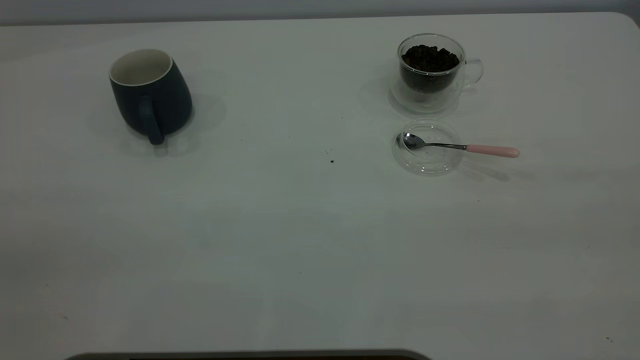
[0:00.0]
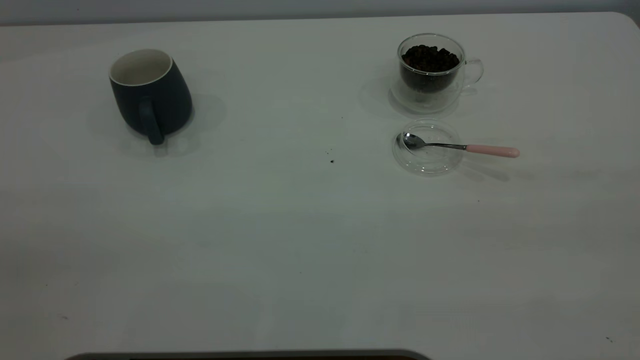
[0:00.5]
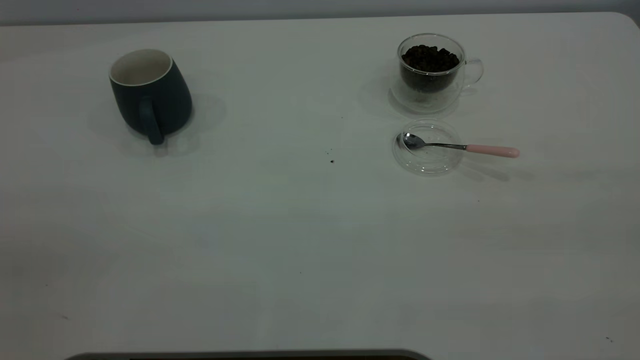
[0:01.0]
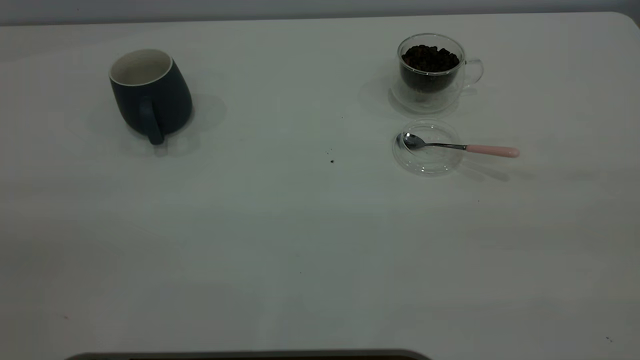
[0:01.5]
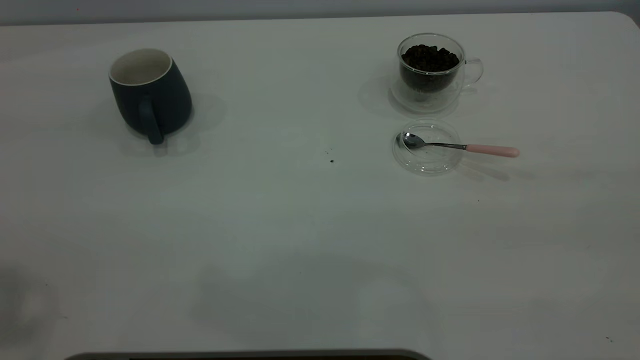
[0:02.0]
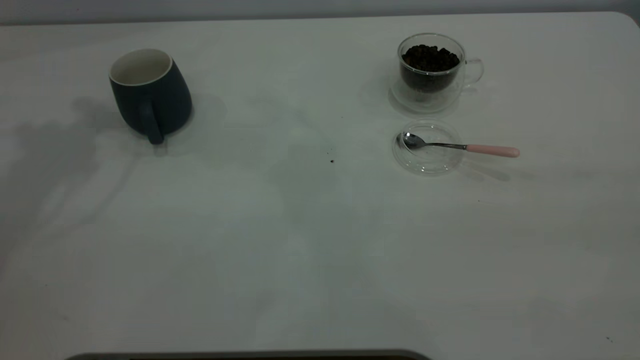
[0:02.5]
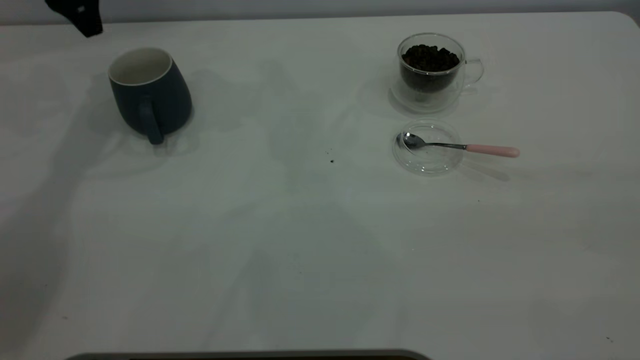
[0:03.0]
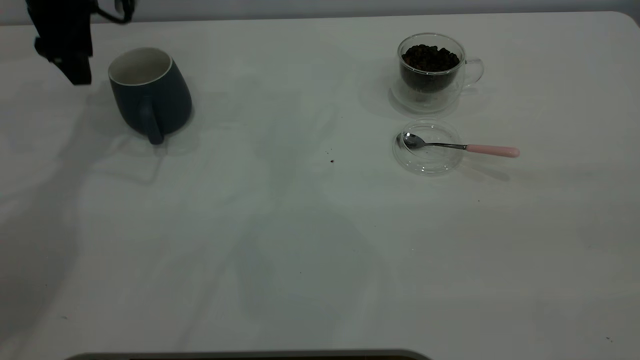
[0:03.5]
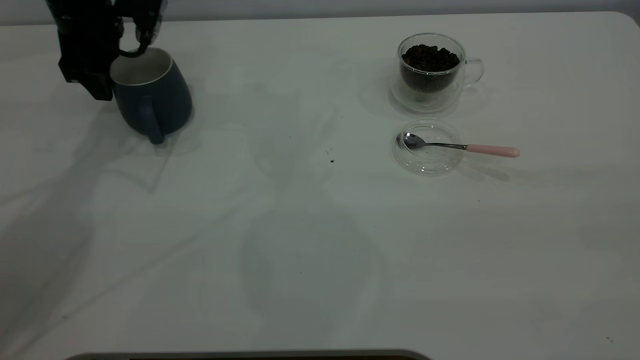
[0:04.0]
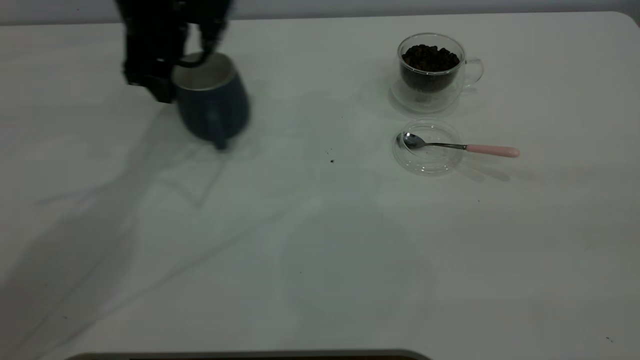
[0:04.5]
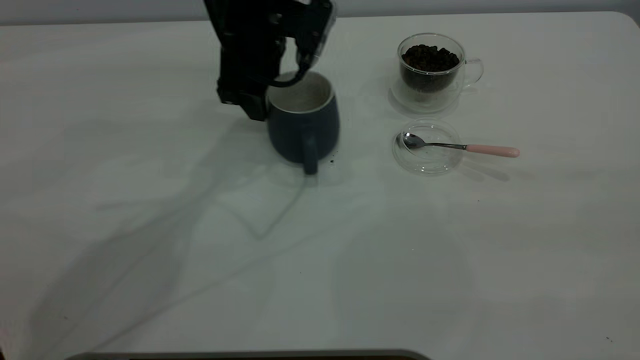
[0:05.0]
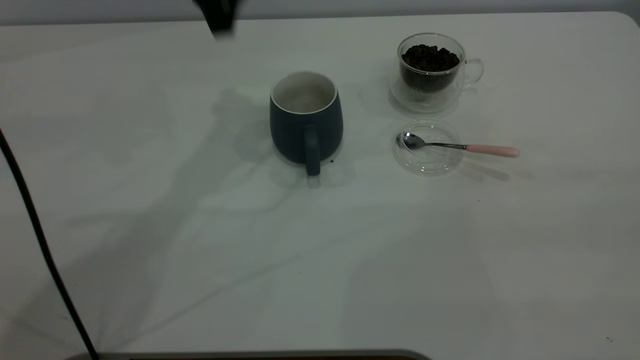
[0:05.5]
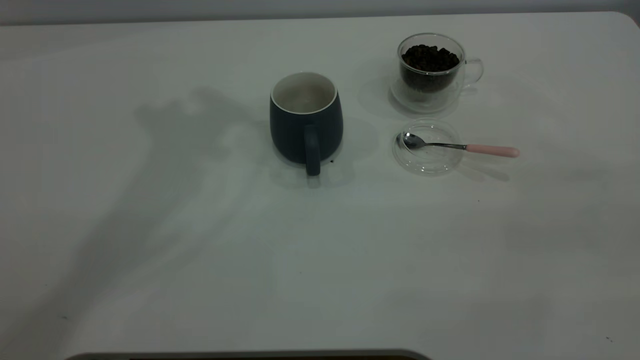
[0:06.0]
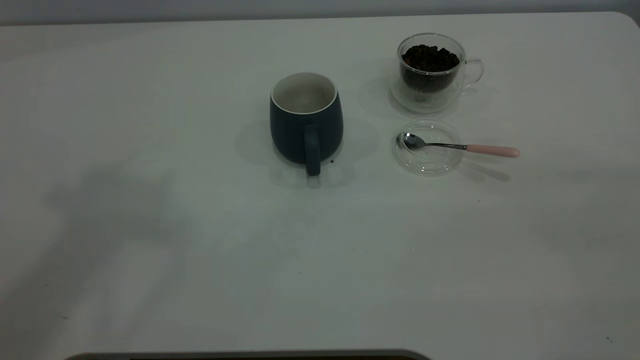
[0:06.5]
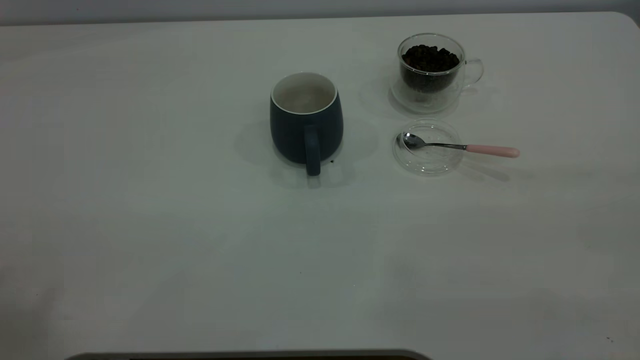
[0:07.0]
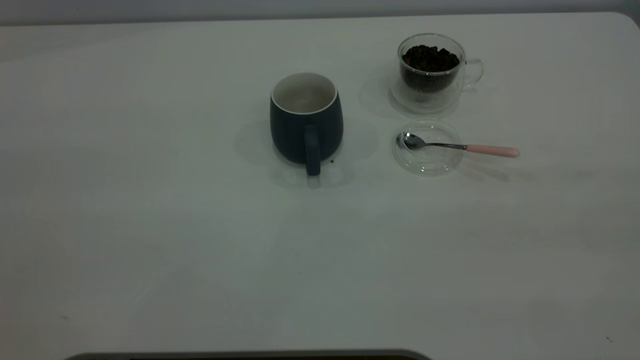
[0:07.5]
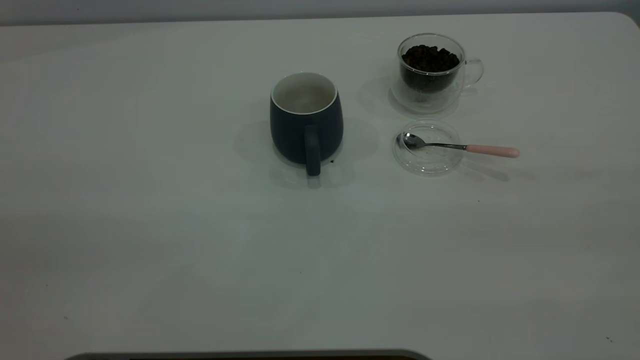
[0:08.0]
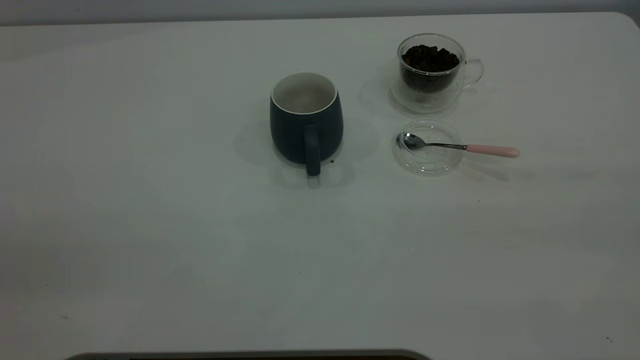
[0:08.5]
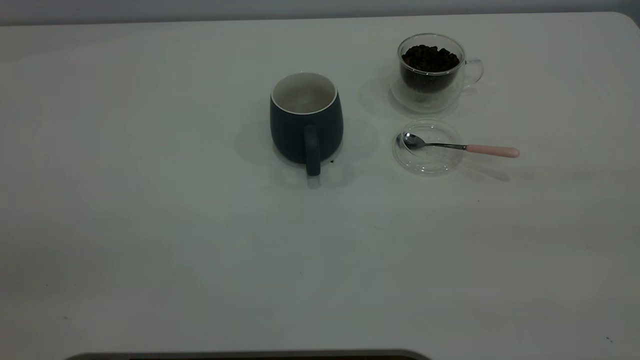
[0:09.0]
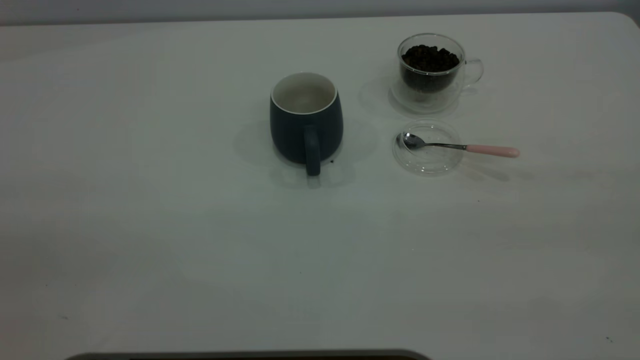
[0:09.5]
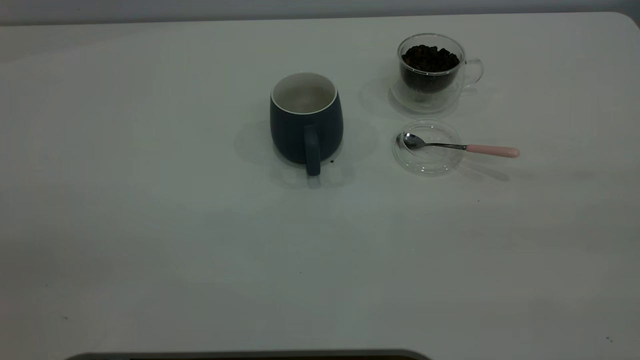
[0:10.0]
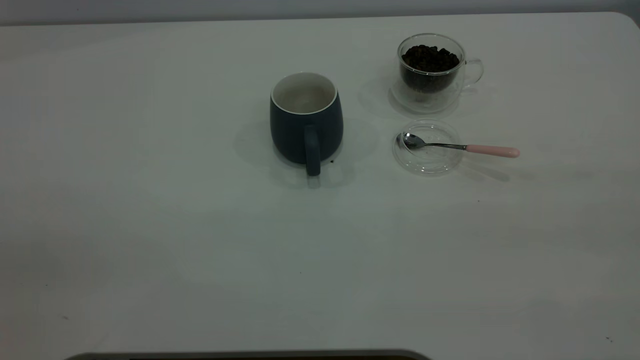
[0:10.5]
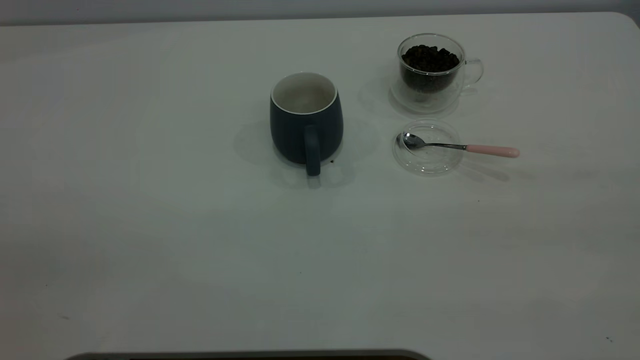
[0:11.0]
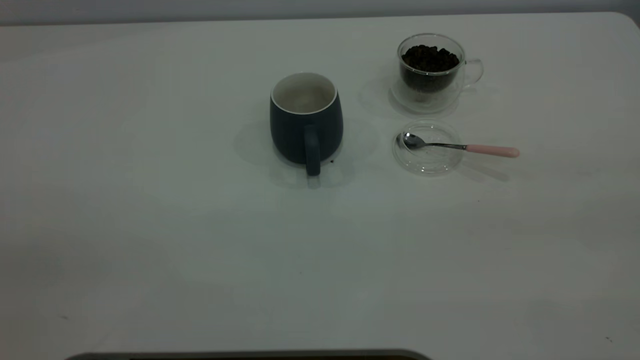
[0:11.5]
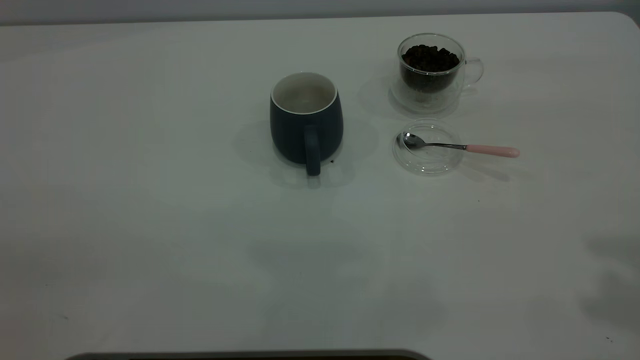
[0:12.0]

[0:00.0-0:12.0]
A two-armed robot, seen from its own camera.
Task of the whole recording: the left gripper place the grey cup in the center of the table, the right gripper take the pink spoon from the cup lid and scoop out the coffee beans from the coffee cup and put them into the grey cup, the right gripper put the spoon back into the cup lid.
Step, 0:00.0 to 0:05.0: Move the cup to the center of view.
0:02.0 to 0:04.0: The left gripper moves forward and downward, some 40 cm.
0:04.0 to 0:06.0: The left gripper heads upward, covering about 35 cm.

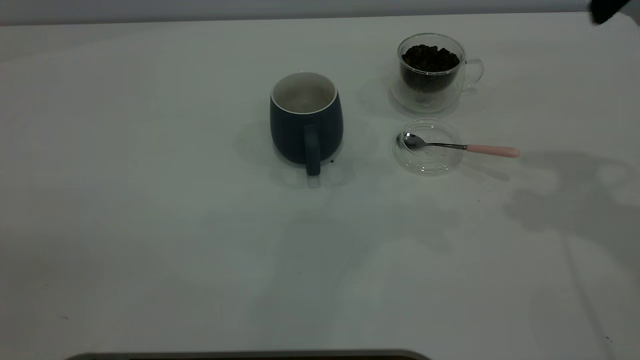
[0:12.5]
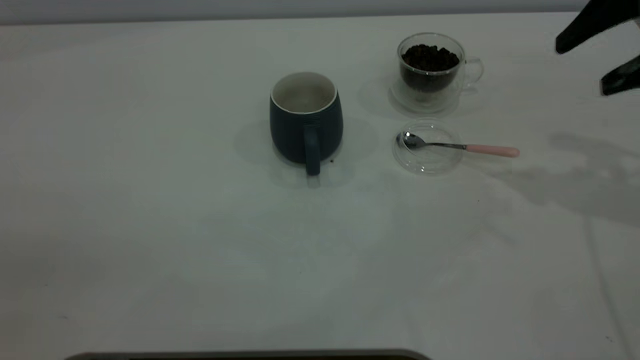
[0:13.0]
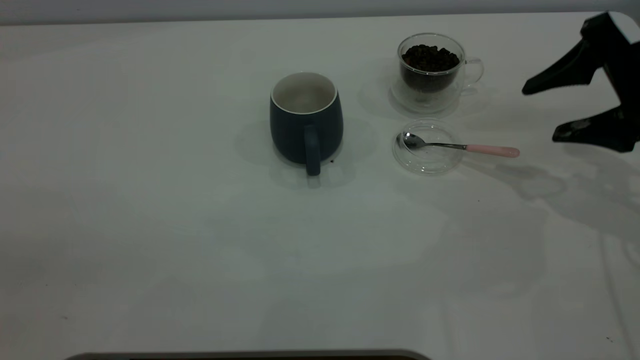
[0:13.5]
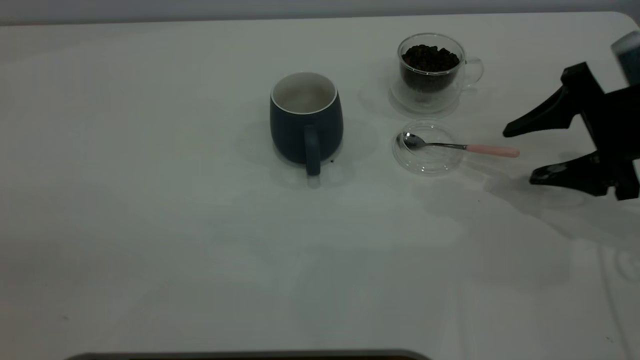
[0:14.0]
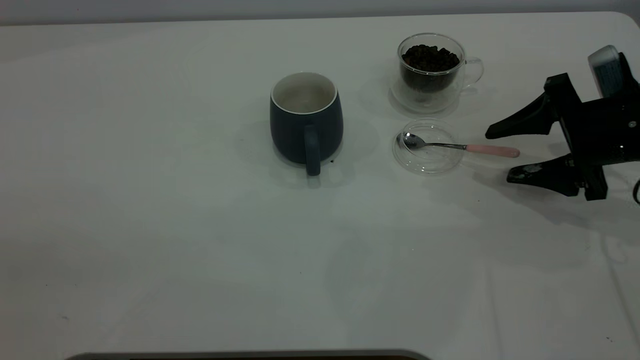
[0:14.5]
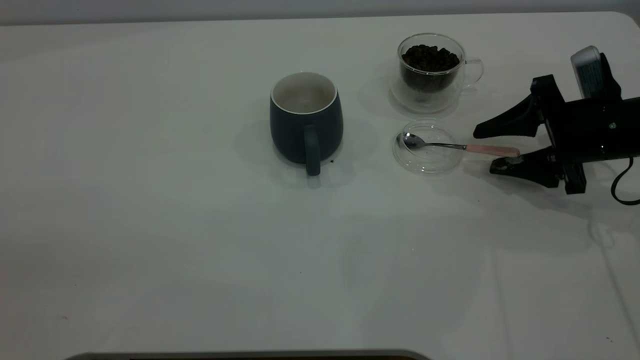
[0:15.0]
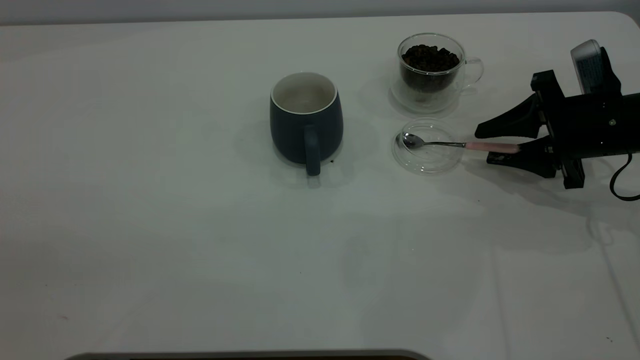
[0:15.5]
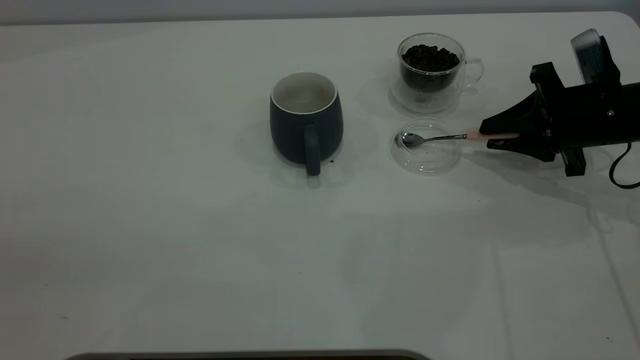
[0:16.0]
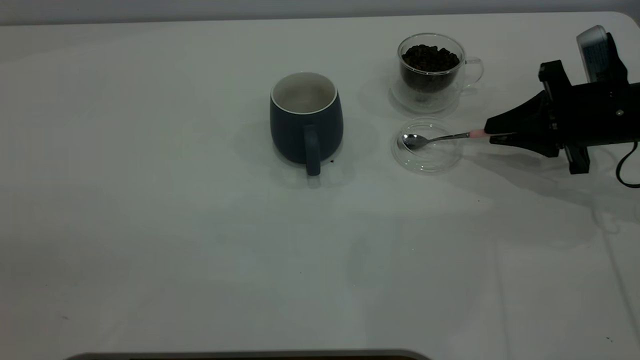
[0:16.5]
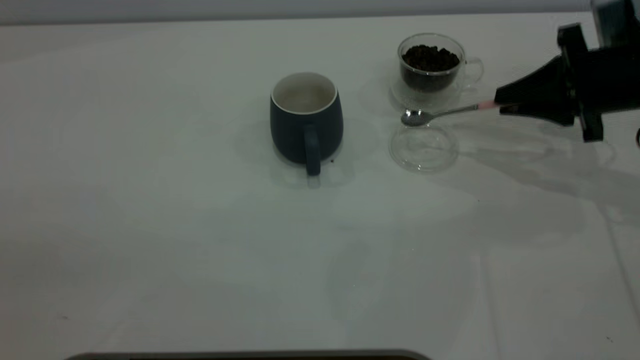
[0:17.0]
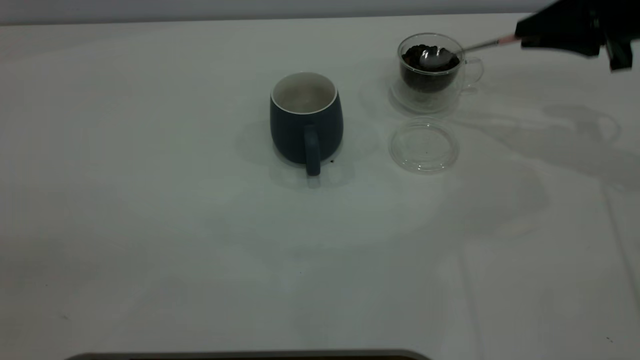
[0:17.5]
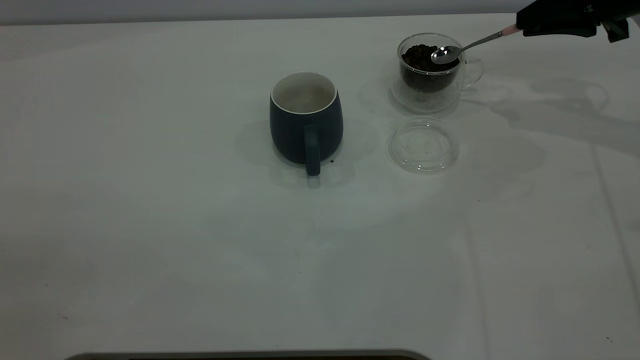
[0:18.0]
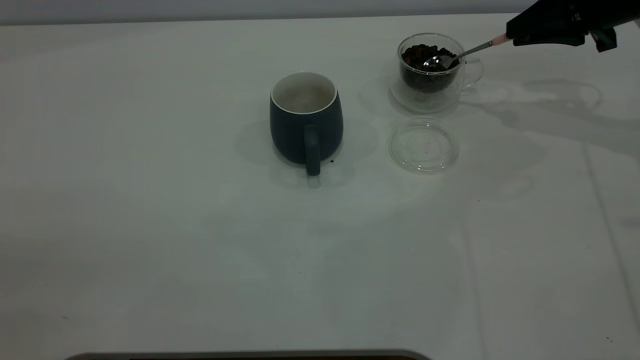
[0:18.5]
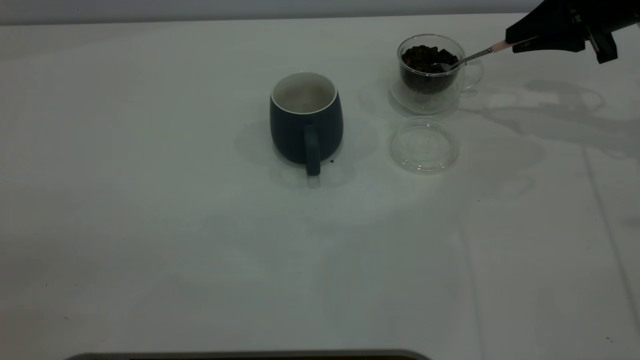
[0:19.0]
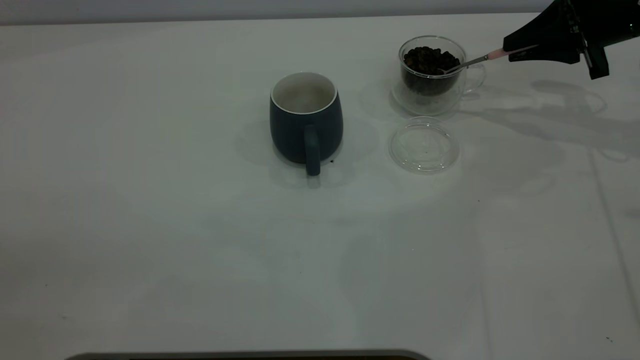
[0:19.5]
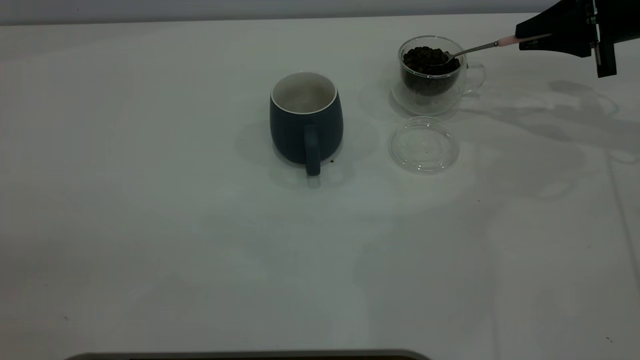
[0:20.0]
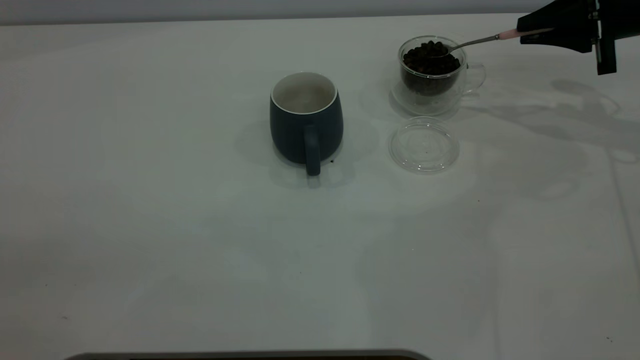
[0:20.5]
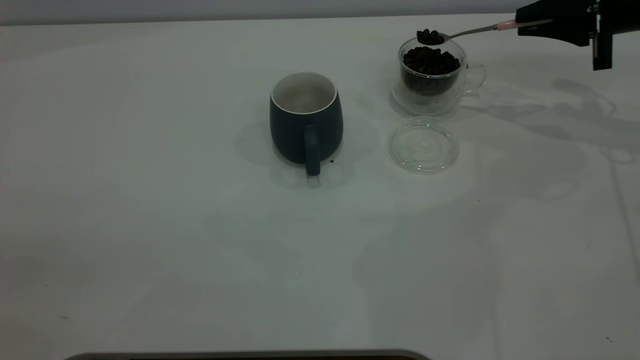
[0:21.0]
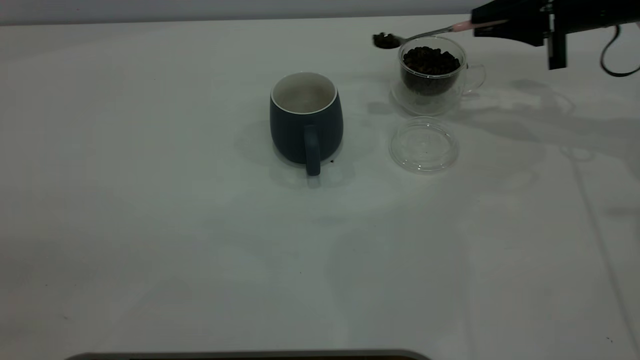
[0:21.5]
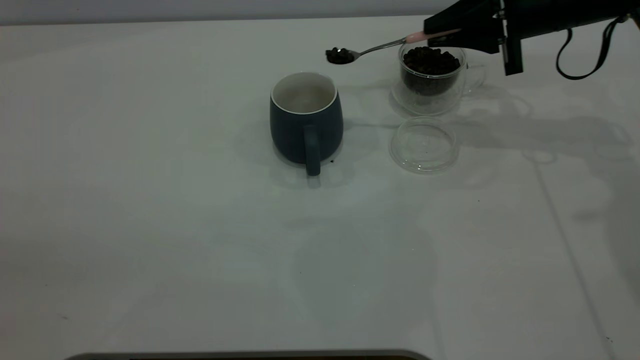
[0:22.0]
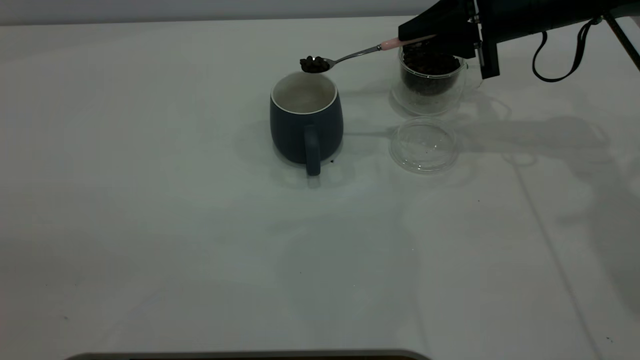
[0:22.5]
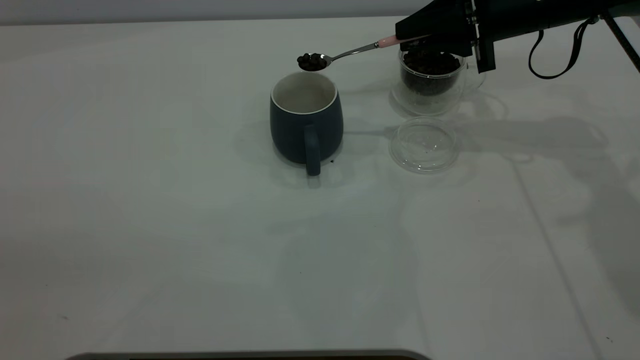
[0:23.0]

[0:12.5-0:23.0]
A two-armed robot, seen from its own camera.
Task of the whole recording: the left gripper place the grey cup in the center of the table, the right gripper take the pink spoon from the cup lid and scoop out the coffee beans from the coffee cup and put them into the grey cup, the right gripper put the spoon back into the cup lid.
Step, 0:12.5 to 0:16.5: Pick up the spoon.
0:12.5 to 0:14.5: The right gripper travels downward by roughly 25 cm.
0:14.5 to 0:16.5: The right gripper closes its fingers.
0:16.5 to 0:19.0: The right gripper moves upward and forward, approximately 15 cm.
0:19.0 to 0:21.0: The grippers make only small movements.
0:21.0 to 0:23.0: The right gripper goes roughly 15 cm to the left.
